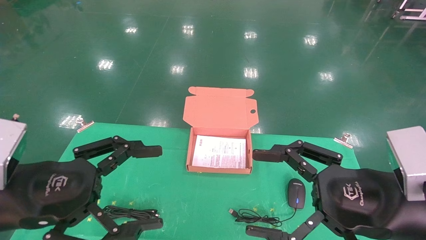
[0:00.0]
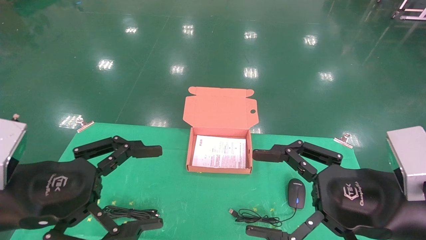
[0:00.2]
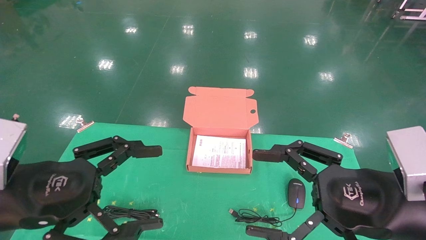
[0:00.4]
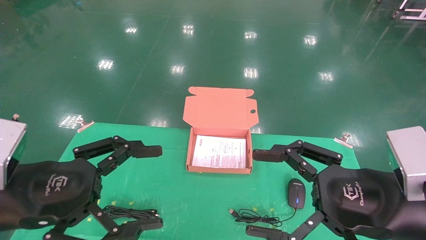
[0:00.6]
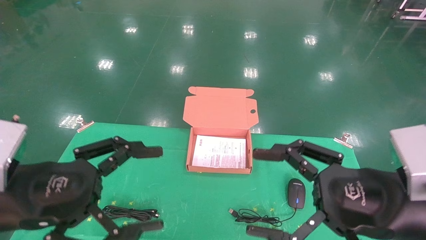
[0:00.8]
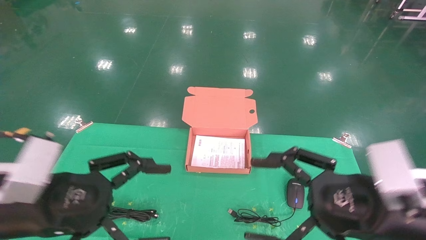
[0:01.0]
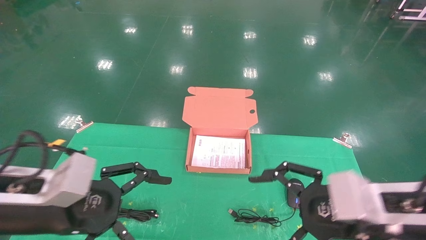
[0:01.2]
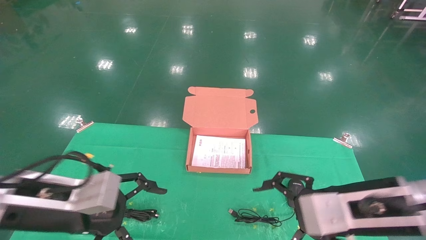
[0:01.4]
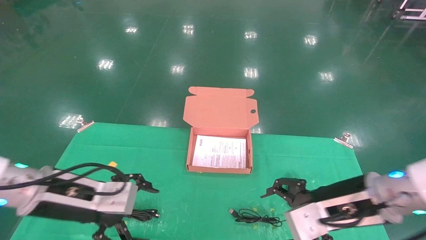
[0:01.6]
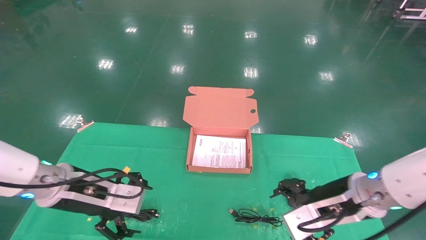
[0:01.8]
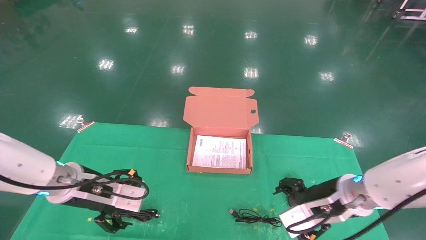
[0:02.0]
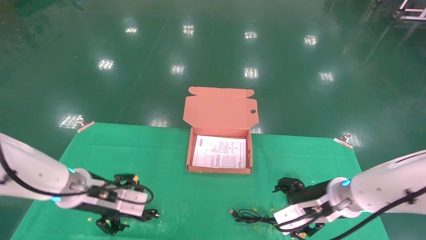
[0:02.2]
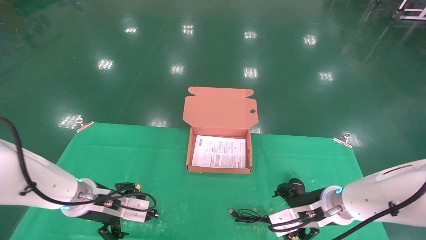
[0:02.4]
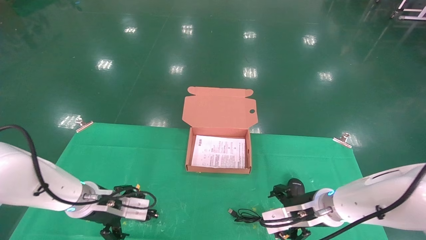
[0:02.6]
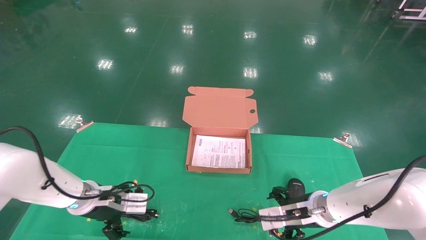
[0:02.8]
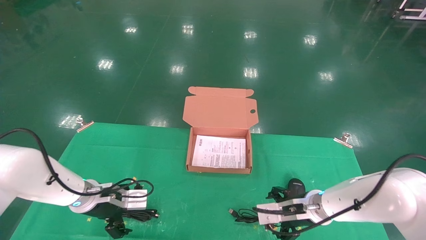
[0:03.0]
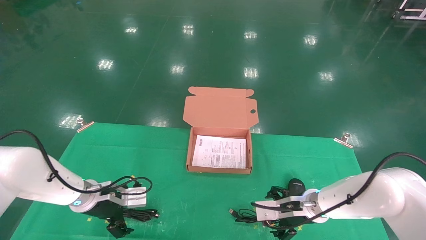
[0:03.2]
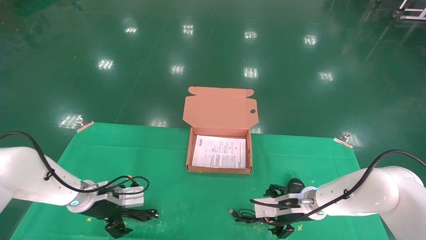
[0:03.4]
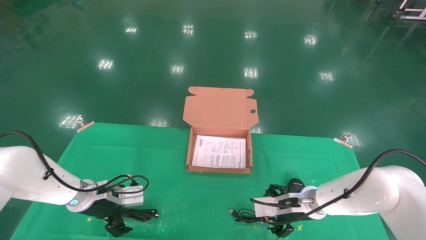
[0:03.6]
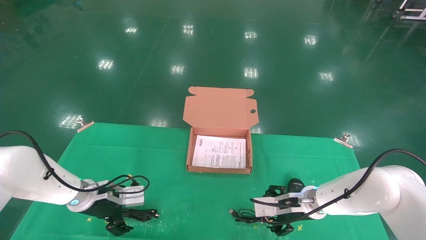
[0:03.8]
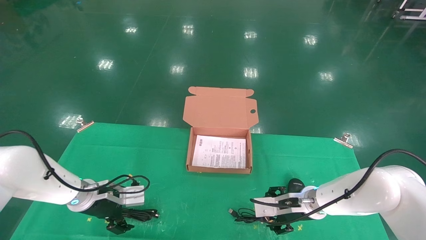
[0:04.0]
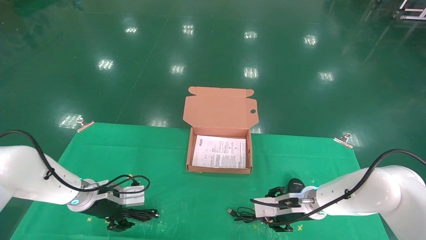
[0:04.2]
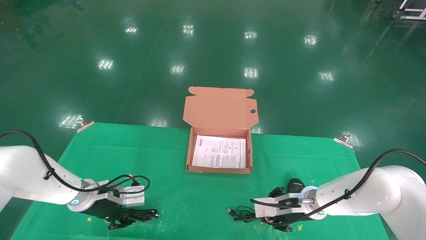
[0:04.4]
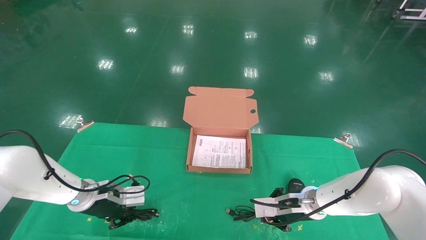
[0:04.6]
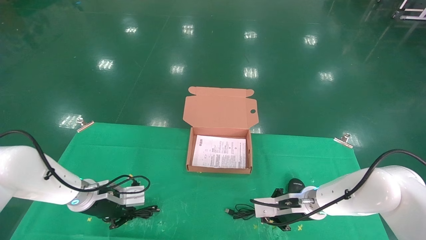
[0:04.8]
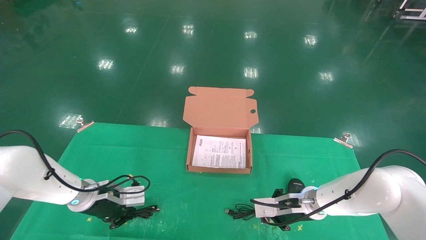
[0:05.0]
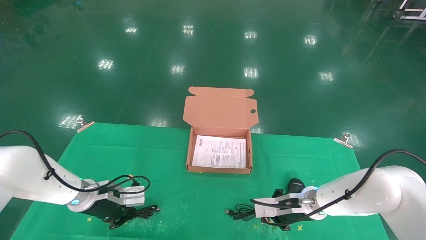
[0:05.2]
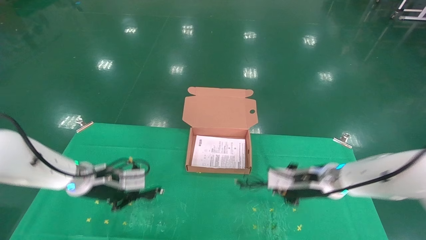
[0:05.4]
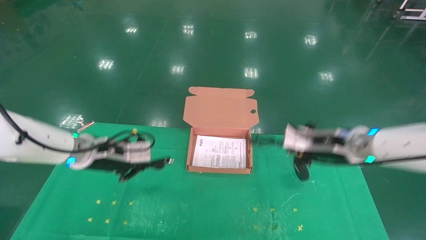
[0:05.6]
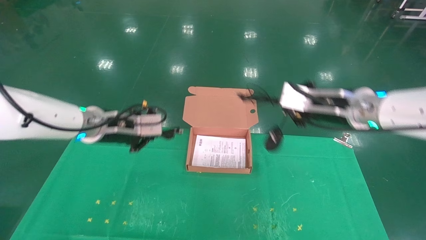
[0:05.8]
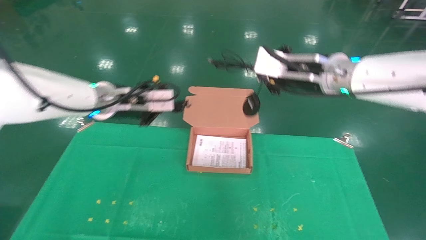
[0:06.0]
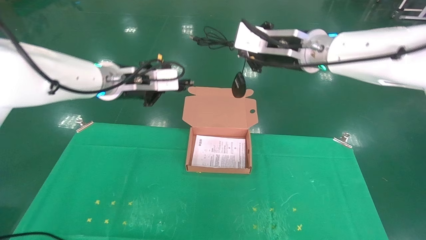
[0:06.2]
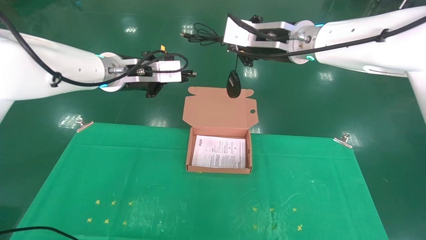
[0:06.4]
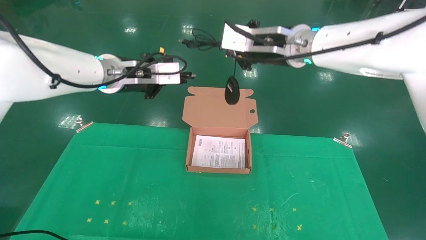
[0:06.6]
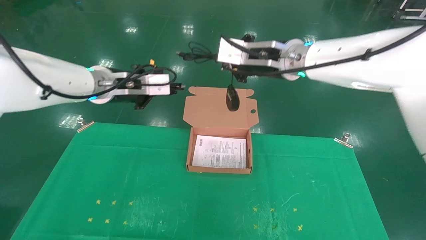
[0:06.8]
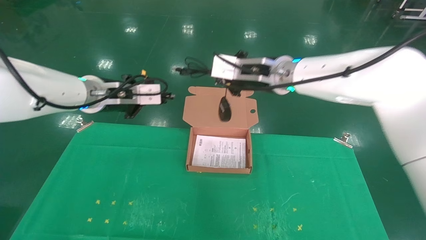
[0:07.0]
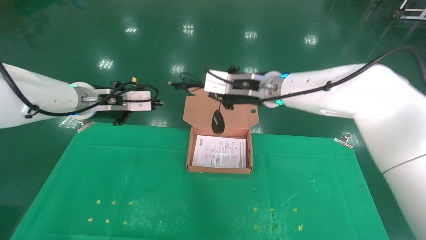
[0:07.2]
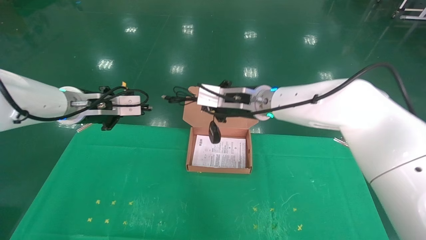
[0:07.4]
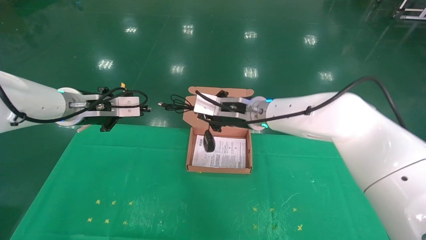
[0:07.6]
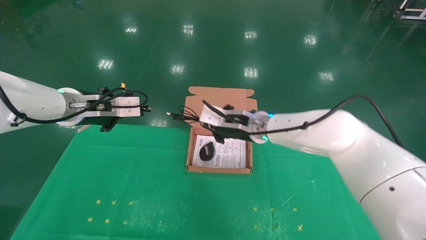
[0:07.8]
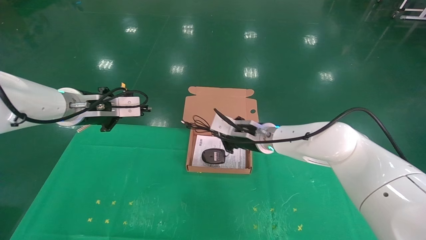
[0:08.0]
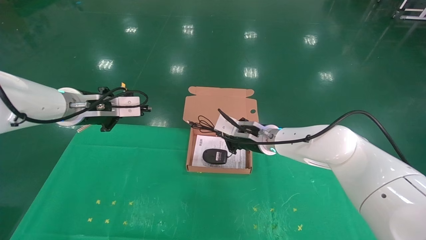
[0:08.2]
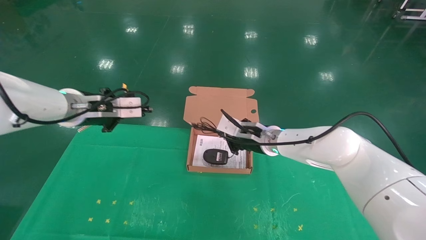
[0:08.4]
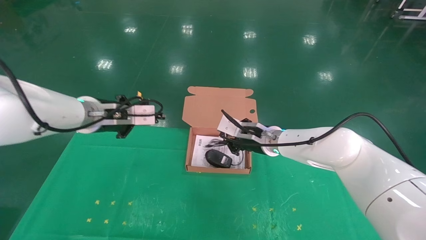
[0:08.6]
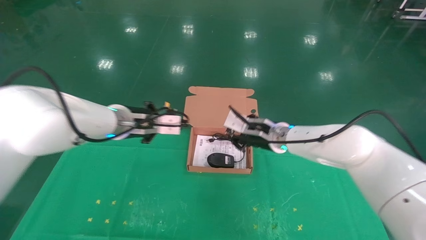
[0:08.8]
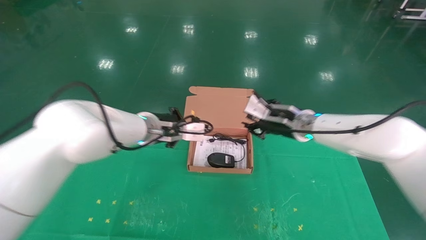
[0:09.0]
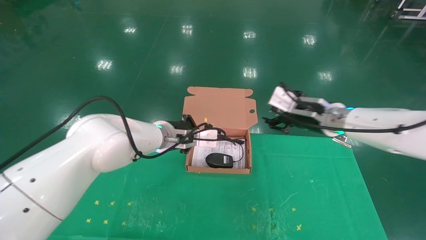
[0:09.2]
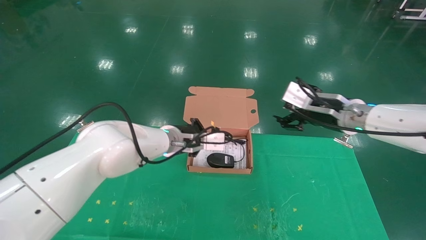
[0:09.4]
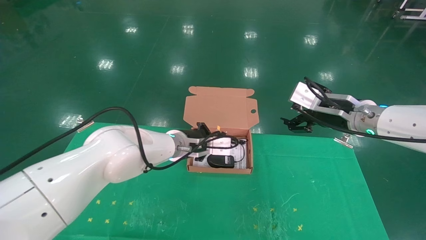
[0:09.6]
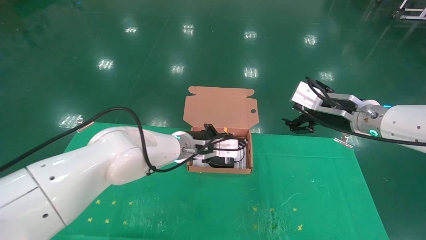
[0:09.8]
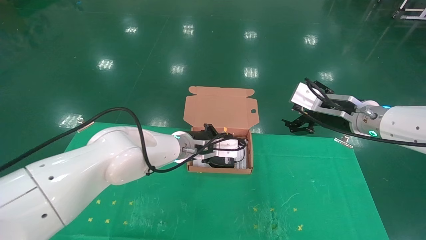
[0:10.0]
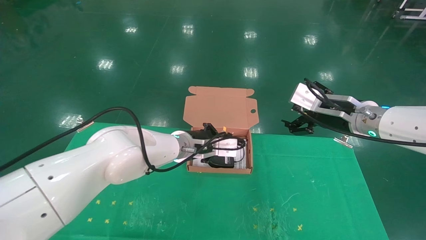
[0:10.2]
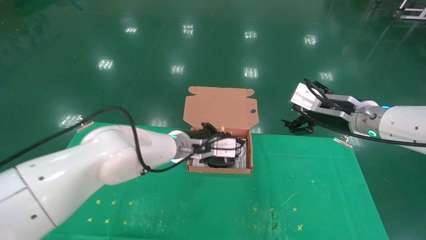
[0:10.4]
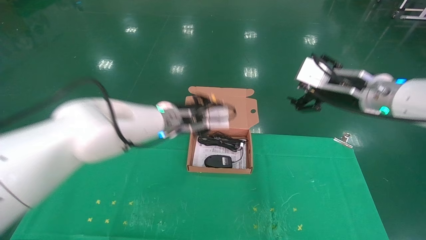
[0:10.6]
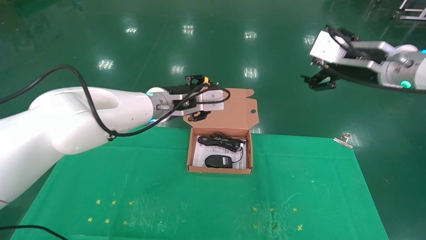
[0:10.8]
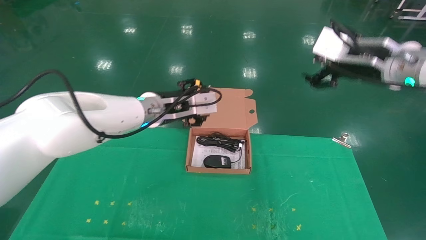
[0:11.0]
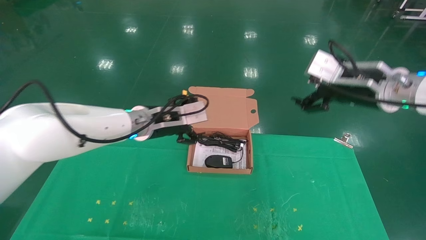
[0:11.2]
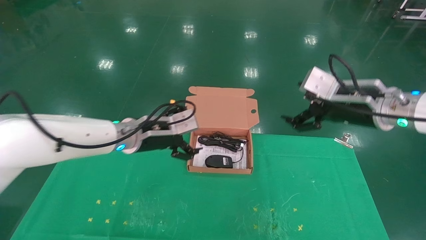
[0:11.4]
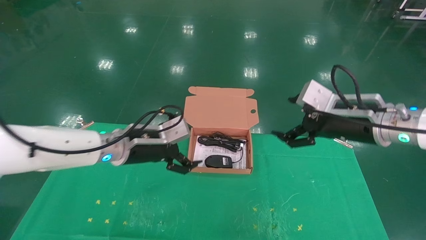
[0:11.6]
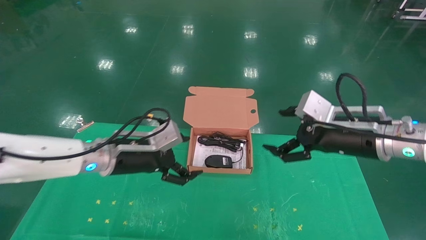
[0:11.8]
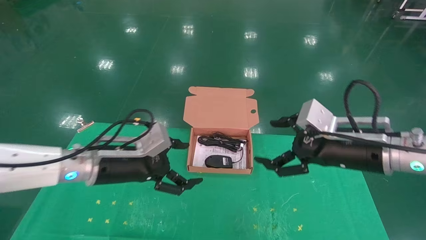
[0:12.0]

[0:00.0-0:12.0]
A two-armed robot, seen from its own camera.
Task of the whole recording: grasp data cable left put into box grasp mouse right put into box.
Step, 0:01.0 to 0:05.4: Grab and pick up both the mouse and power cord from the accessory packaging area at the same time.
Step, 0:05.6 to 0:10.8: Place the mouse and power cord into the box.
0:00.0 to 0:01.6: The right gripper moves forward, roughly 10 cm. Meanwhile the left gripper is displaced forward and downward by some 10 cm.
0:01.6 to 0:03.0: The grippers both shift forward and downward by about 15 cm.
0:03.0 to 0:04.4: The left gripper closes its fingers. The right gripper closes.
0:04.4 to 0:06.0: Both grippers travel together upward, about 25 cm. The right gripper closes up. The left gripper closes up.
0:06.0 to 0:07.6: The right gripper is displaced to the left, downward and forward by some 15 cm, while the left gripper is displaced to the left by about 5 cm.
0:07.6 to 0:09.0: The left gripper travels to the right and downward by some 15 cm; the right gripper is displaced to the right by approximately 10 cm.
0:09.0 to 0:10.4: The left gripper is displaced to the right by roughly 5 cm, while the right gripper goes roughly 10 cm to the right, backward and upward, and opens its fingers.
0:10.4 to 0:12.0: The right gripper shifts about 5 cm backward. Meanwhile the left gripper goes about 15 cm to the left and backward, and opens up.

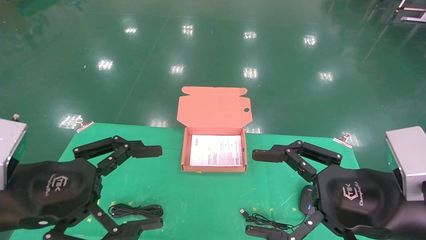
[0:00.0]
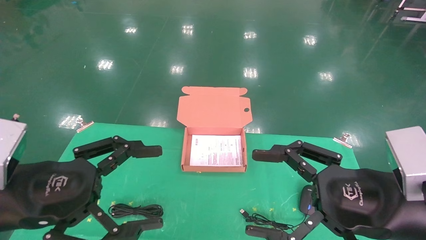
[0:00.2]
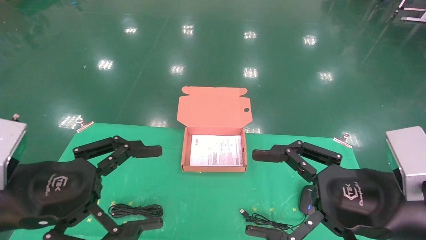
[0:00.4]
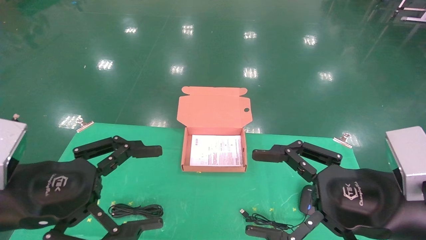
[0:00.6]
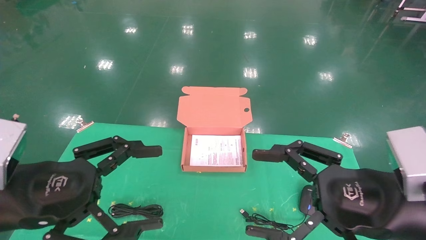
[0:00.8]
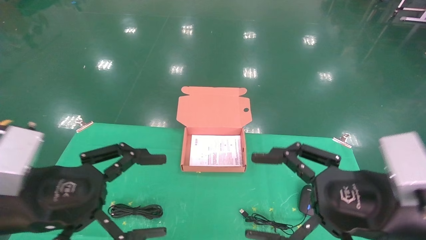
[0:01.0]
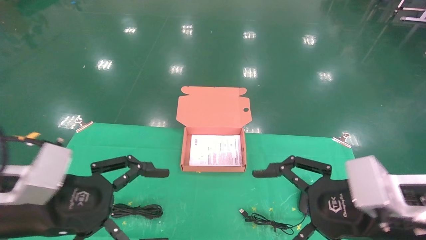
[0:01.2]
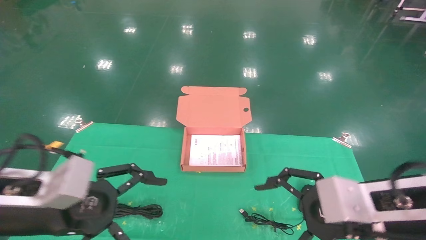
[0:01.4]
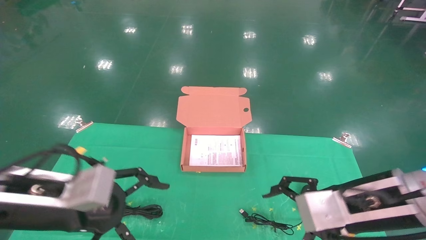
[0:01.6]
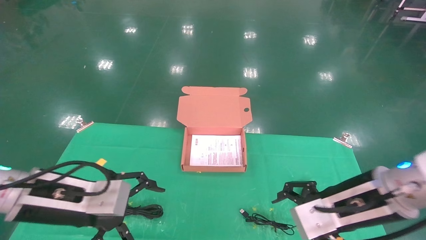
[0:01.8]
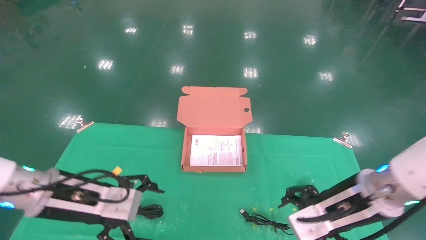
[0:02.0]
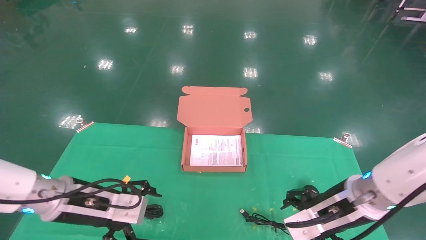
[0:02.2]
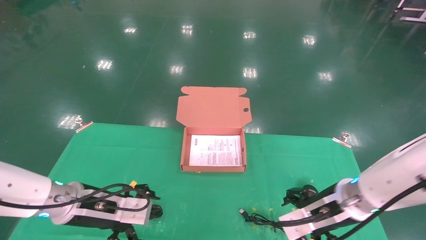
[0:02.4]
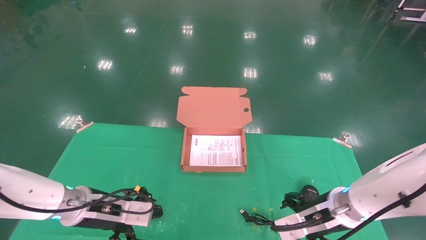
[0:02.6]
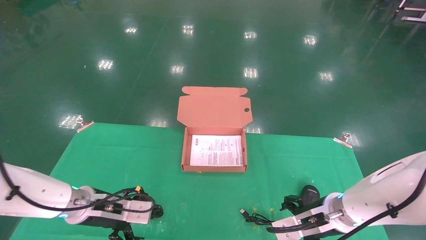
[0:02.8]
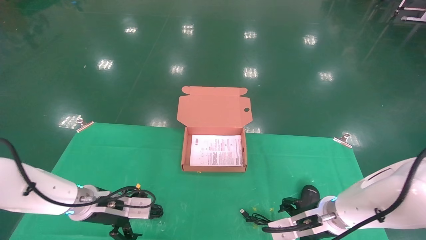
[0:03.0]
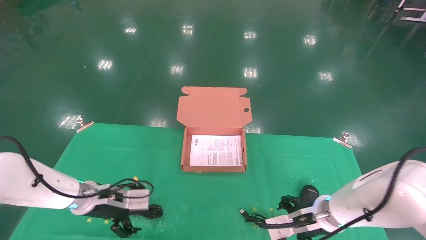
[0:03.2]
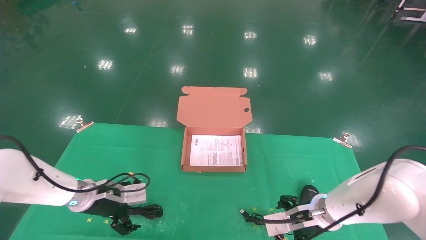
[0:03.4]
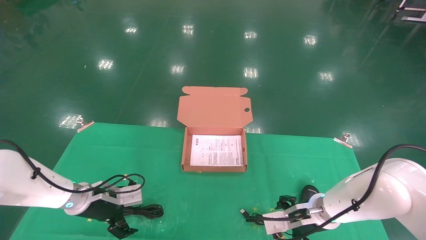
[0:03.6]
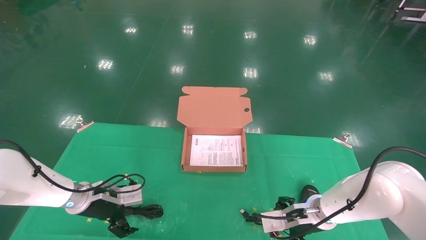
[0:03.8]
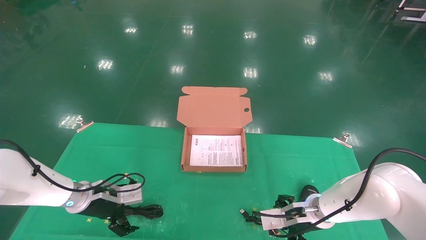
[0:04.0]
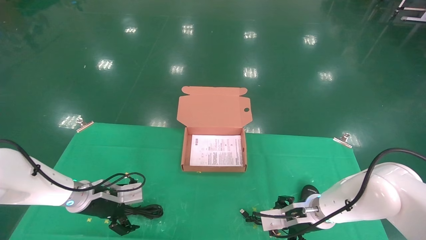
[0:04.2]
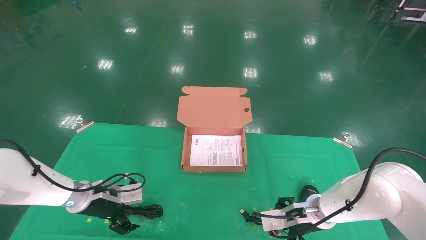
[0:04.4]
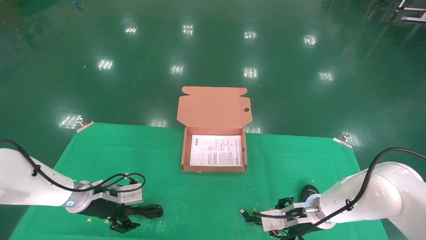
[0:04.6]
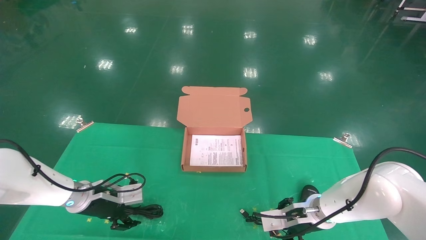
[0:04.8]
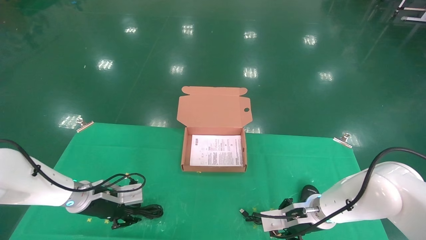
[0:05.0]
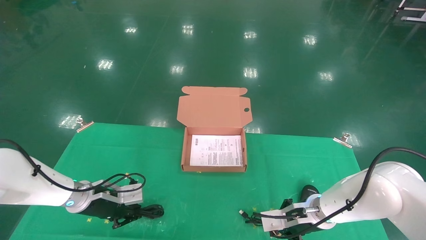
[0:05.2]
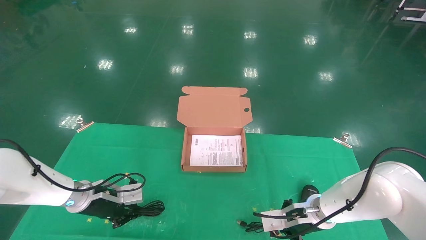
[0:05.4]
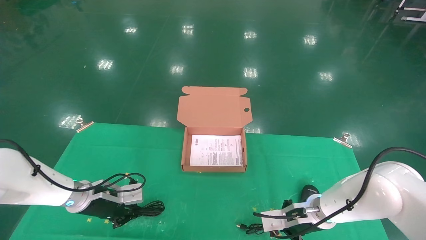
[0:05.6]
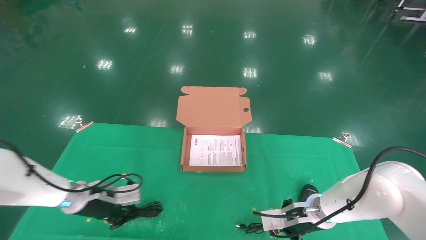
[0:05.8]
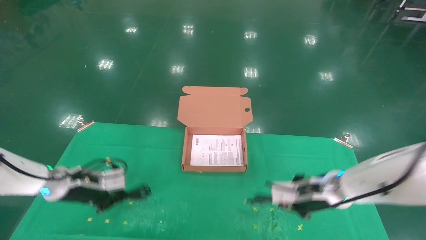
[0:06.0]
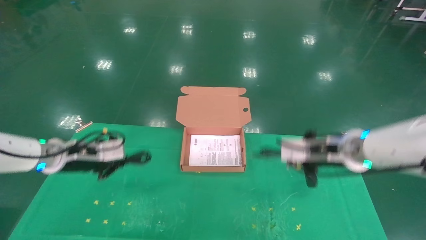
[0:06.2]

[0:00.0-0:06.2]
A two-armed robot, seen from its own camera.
Task of the whole recording: grasp data cable left put into box grasp mouse right put into box.
Step, 0:00.0 to 0:05.8: Grab and pick up both the mouse and power cord from the accessory packaging area at the same time.
0:00.0 to 0:01.6: The left gripper shifts by approximately 5 cm. The right gripper moves forward, roughly 5 cm.
0:01.6 to 0:03.2: The left gripper goes roughly 20 cm forward and downward. The right gripper moves downward and forward, approximately 20 cm.
0:03.2 to 0:04.6: The grippers make only small movements.
0:04.6 to 0:06.2: The grippers both shift upward by roughly 15 cm. The left gripper closes up. The right gripper closes its fingers.
